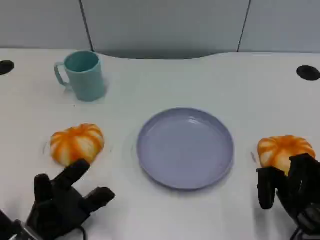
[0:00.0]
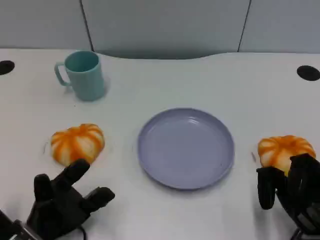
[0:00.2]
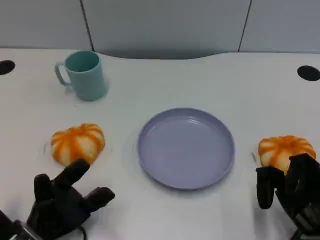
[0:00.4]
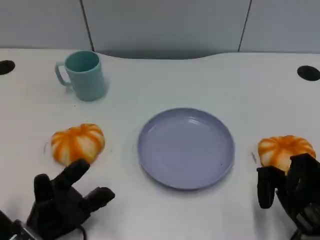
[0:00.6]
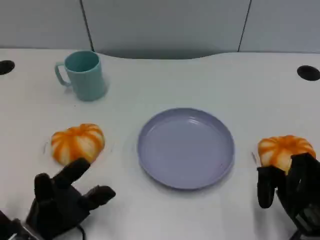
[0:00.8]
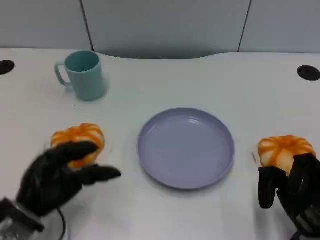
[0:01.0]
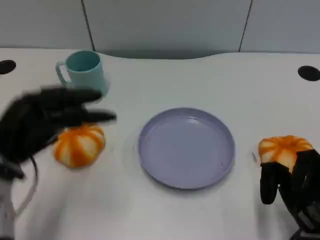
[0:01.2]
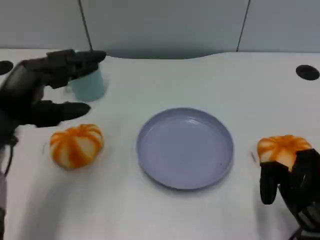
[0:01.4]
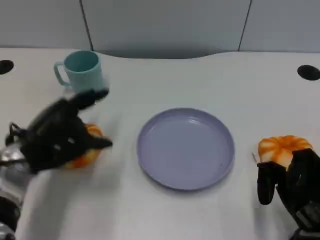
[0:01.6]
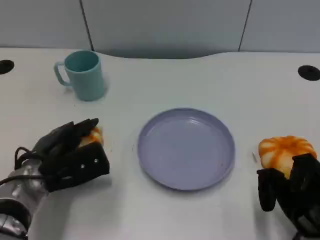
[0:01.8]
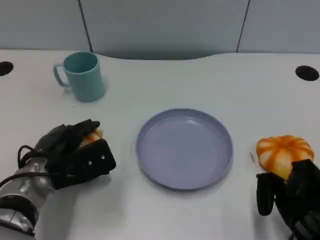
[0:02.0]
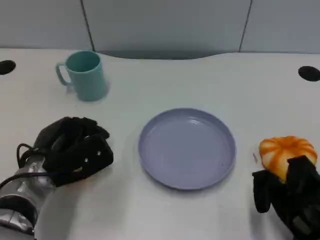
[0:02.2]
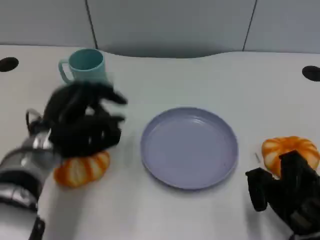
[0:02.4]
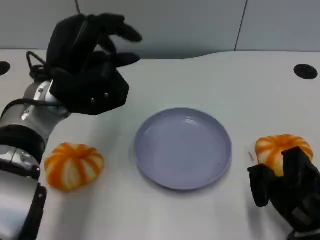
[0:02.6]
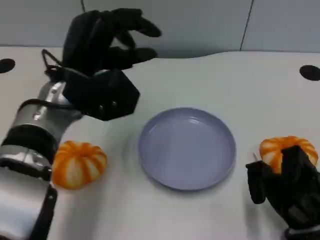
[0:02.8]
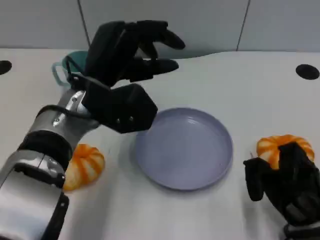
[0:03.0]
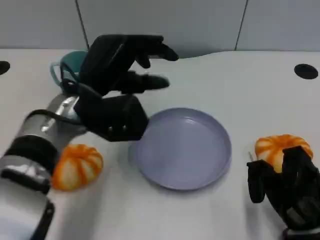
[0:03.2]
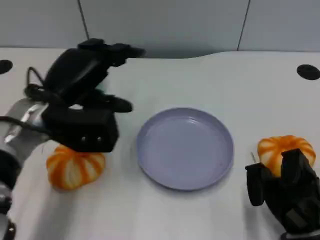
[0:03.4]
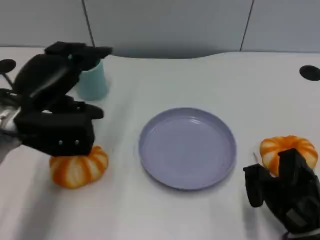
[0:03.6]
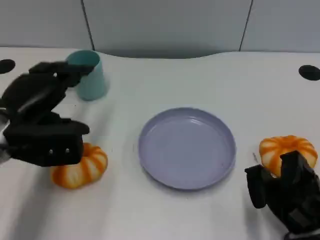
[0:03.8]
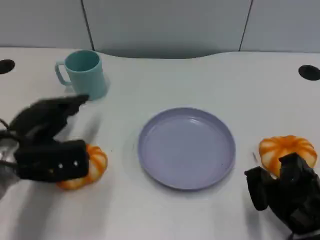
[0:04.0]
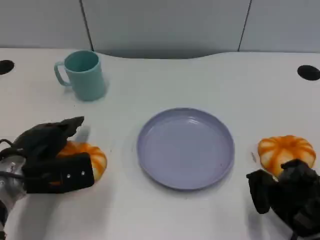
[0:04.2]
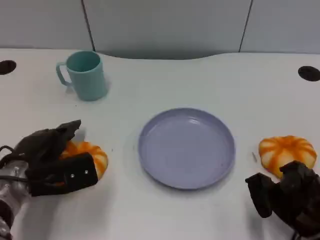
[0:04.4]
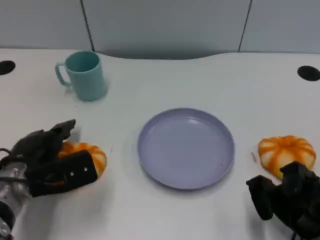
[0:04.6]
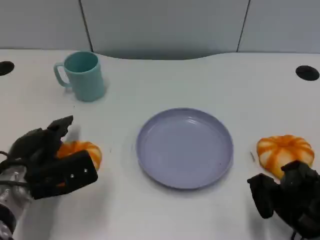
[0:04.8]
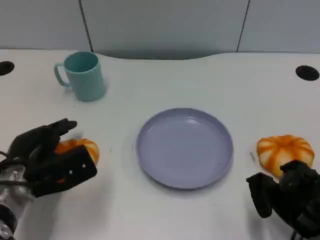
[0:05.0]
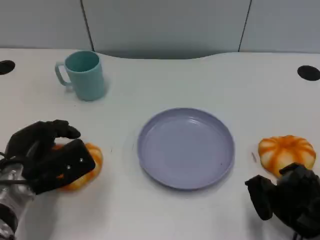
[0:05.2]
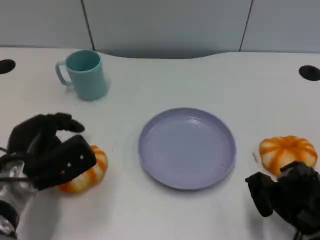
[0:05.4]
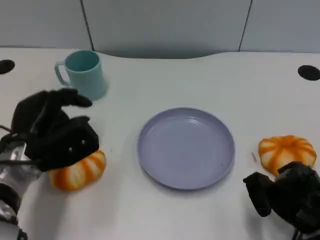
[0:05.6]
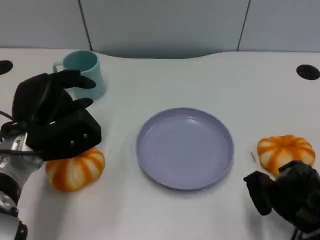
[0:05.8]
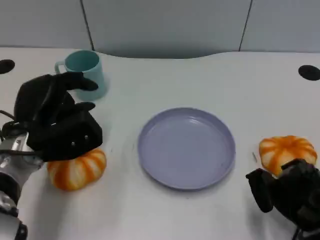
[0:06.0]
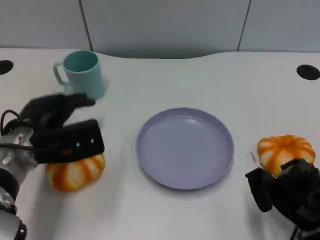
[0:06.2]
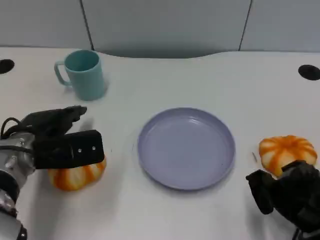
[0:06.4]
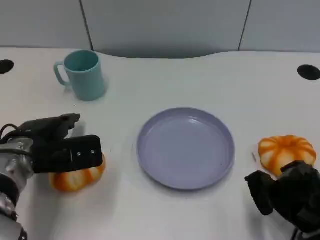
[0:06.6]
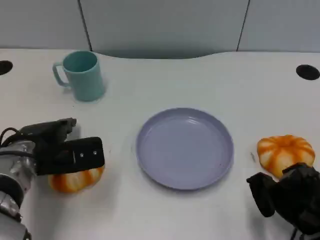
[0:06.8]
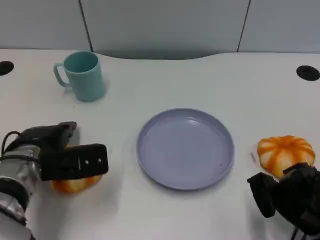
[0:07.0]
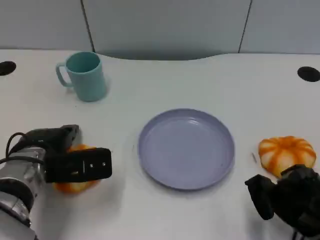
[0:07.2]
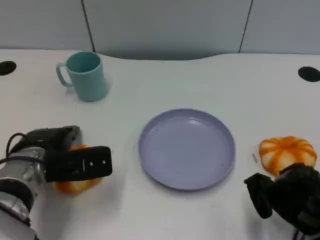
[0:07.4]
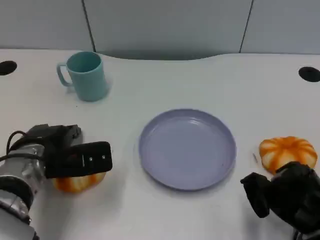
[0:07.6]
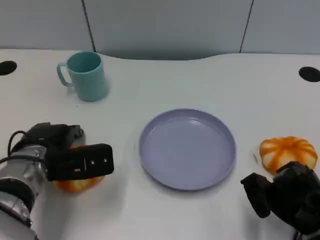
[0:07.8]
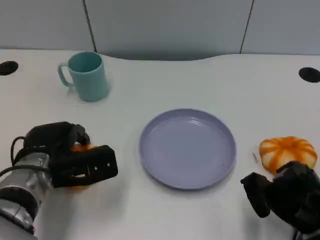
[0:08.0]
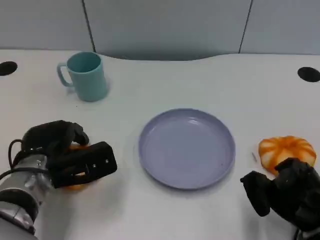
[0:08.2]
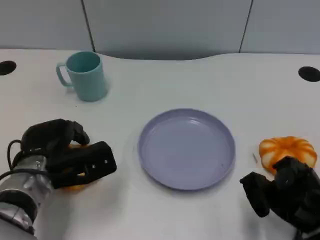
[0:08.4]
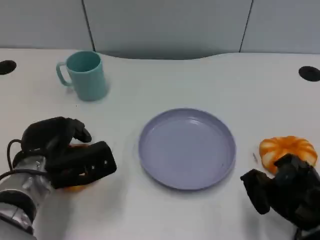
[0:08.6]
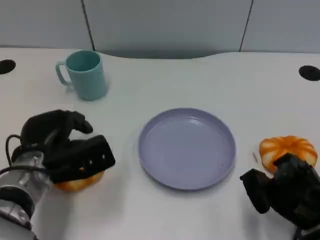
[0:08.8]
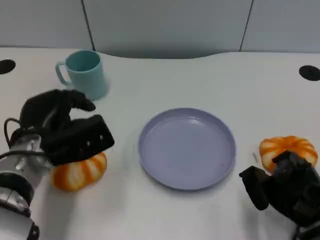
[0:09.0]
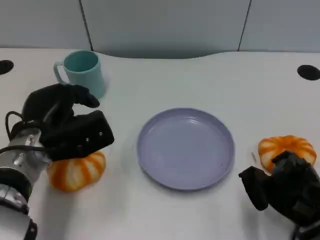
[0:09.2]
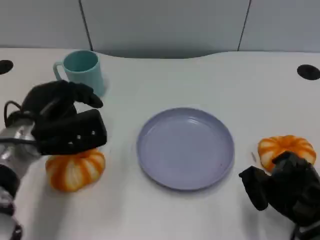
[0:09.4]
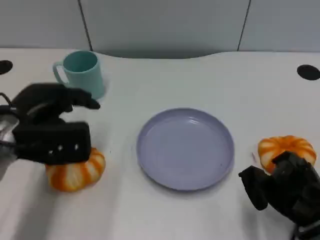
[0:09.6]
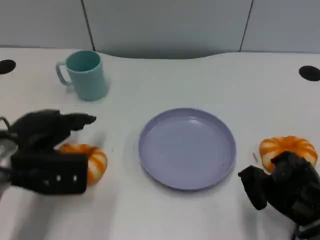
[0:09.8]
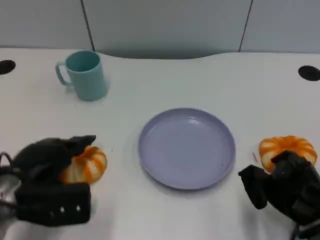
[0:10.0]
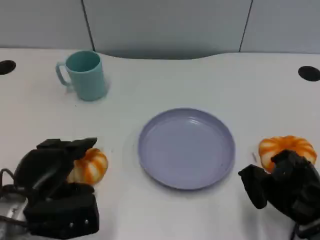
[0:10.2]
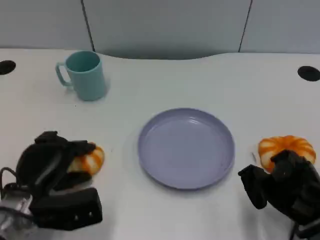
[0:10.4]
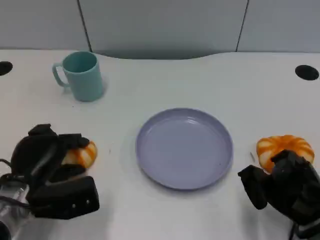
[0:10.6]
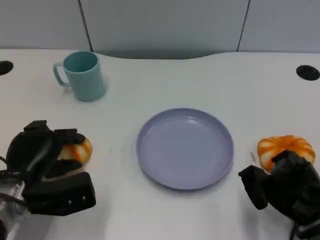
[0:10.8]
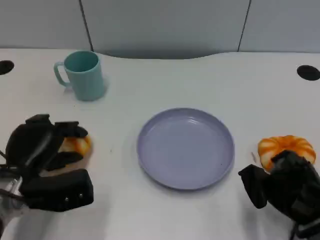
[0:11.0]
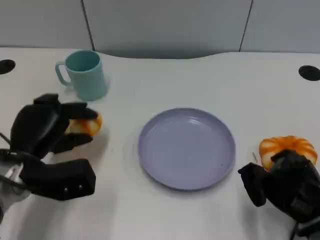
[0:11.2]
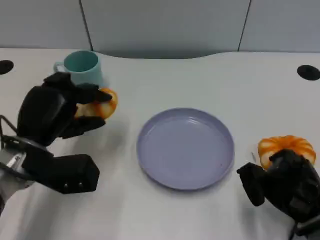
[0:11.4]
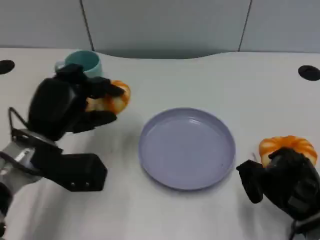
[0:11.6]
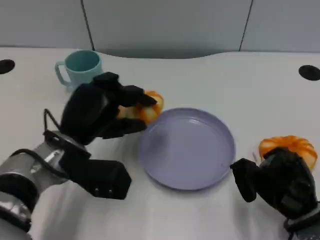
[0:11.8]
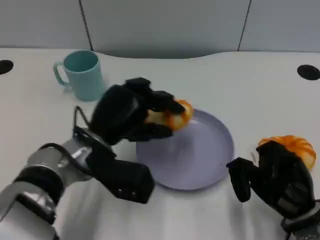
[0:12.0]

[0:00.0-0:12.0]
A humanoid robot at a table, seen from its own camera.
Task of the whole recording: Grasp the bread from the table and place it into the plate.
0:00.0 to 0:01.6: The left hand goes some 15 cm upward and forward.
0:01.6 to 0:03.0: The left hand travels to the right and upward by approximately 10 cm.
0:03.0 to 0:04.4: The left hand travels to the left and downward by roughly 15 cm.
0:04.4 to 0:06.0: The left hand shifts by approximately 5 cm.
0:09.0 to 0:10.4: The left hand heads backward and downward, covering about 10 cm.
0:10.4 to 0:12.0: The left hand moves to the right and upward, roughly 10 cm.

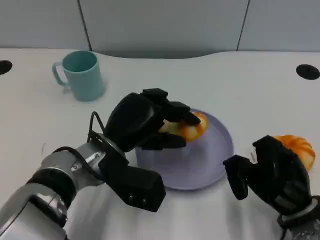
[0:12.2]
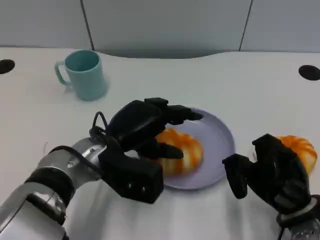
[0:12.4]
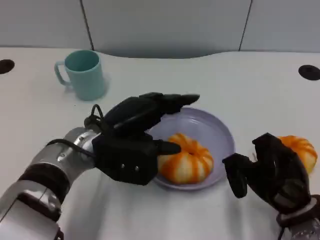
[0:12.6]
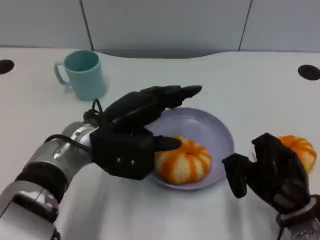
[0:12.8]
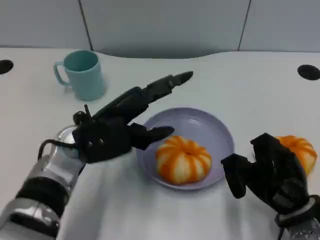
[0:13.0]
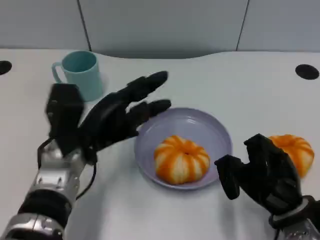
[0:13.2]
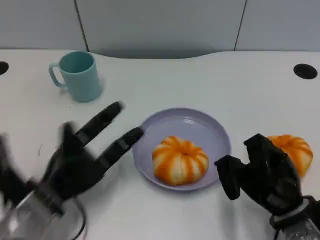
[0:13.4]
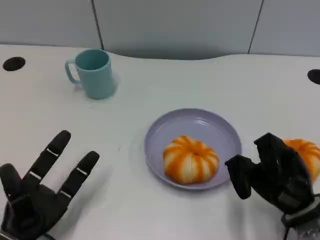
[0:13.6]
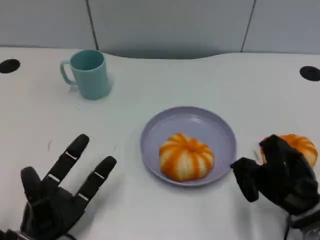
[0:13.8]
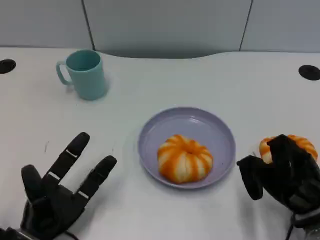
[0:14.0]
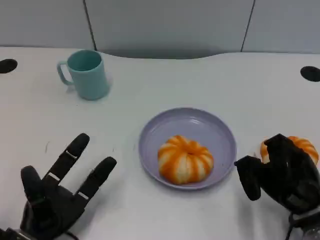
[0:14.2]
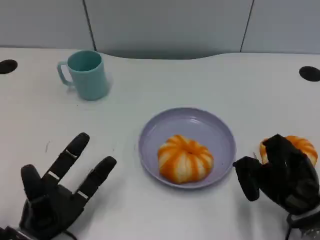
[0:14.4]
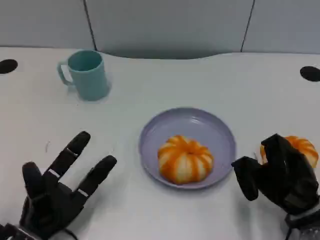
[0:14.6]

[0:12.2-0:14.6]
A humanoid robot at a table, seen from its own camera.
Task of the whole recording: Grasp the bread from the table and place it into the plate.
0:12.2 to 0:13.4: The left hand travels to the left, downward and backward by roughly 15 cm.

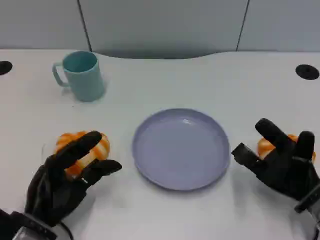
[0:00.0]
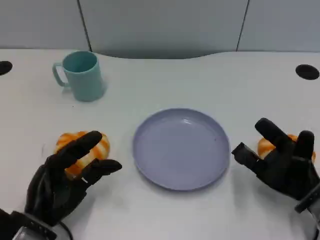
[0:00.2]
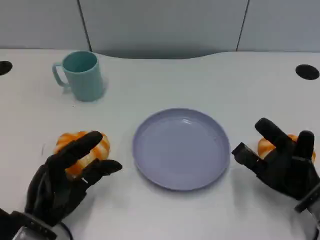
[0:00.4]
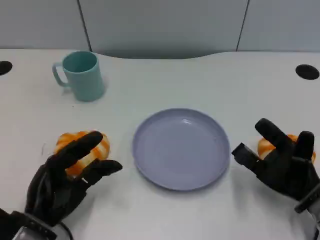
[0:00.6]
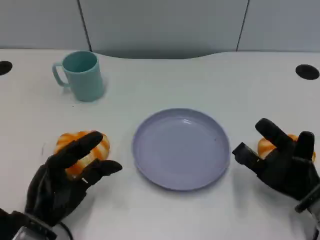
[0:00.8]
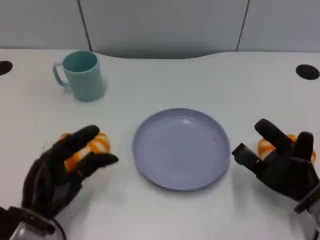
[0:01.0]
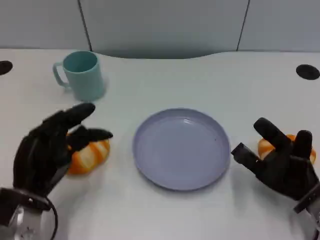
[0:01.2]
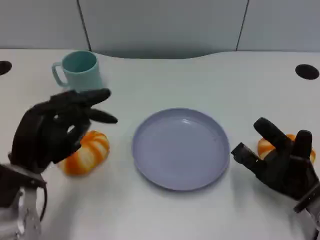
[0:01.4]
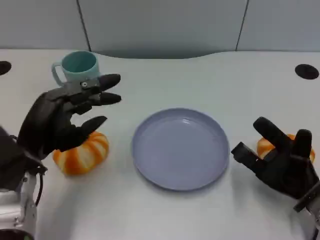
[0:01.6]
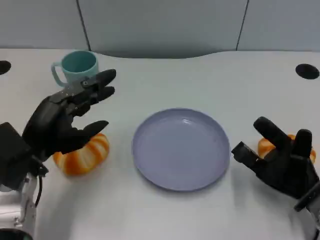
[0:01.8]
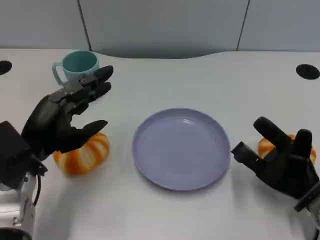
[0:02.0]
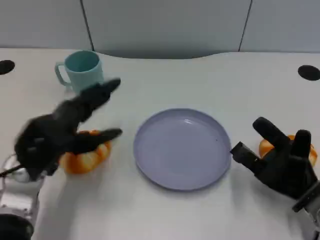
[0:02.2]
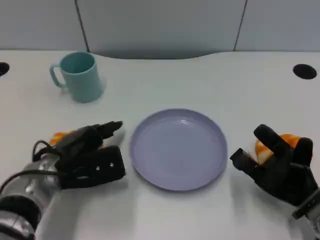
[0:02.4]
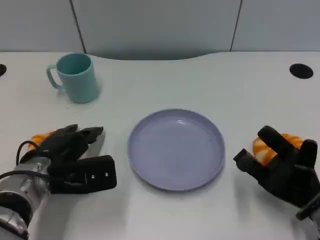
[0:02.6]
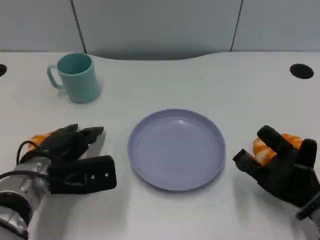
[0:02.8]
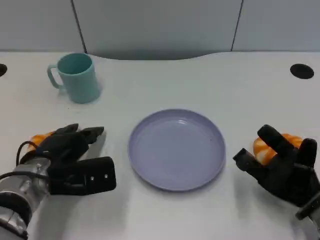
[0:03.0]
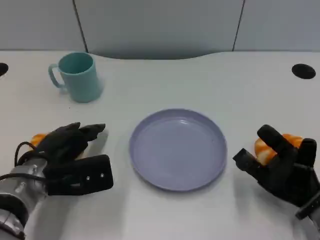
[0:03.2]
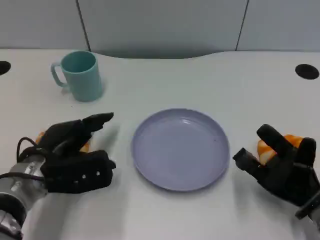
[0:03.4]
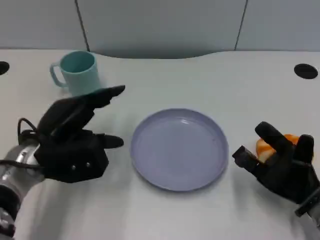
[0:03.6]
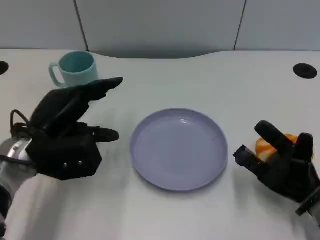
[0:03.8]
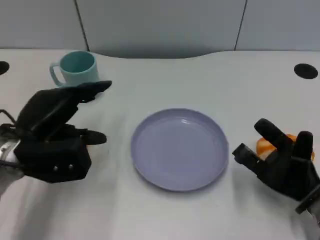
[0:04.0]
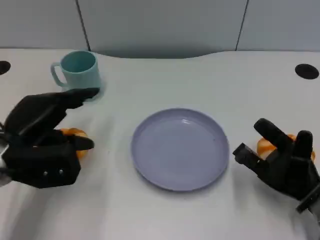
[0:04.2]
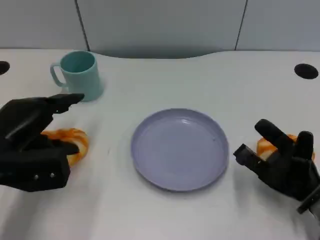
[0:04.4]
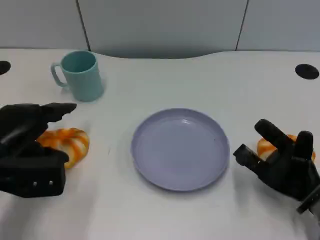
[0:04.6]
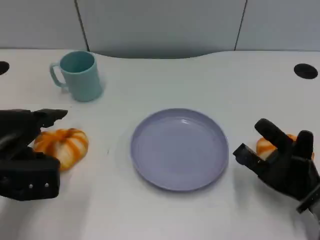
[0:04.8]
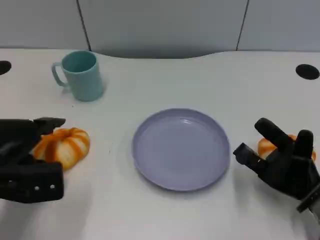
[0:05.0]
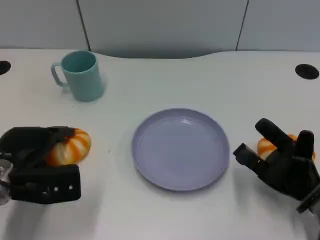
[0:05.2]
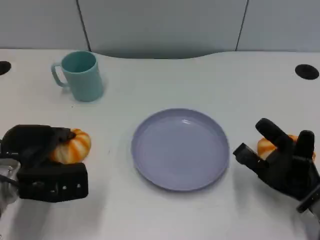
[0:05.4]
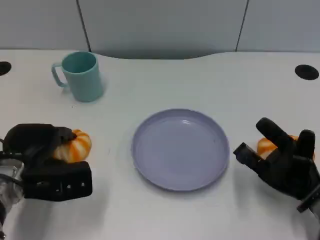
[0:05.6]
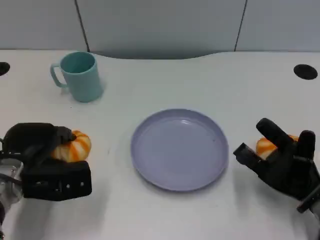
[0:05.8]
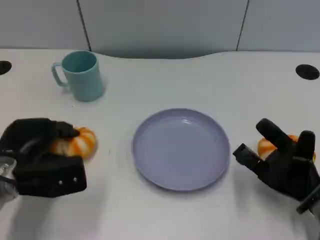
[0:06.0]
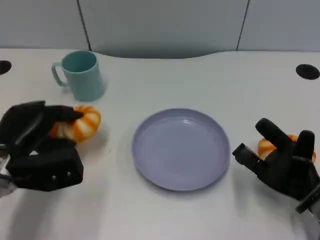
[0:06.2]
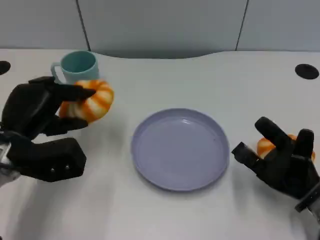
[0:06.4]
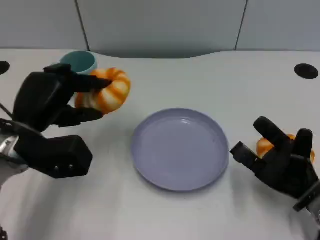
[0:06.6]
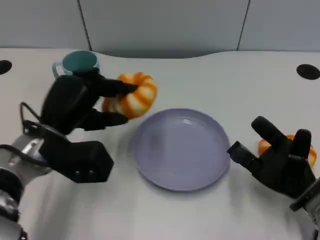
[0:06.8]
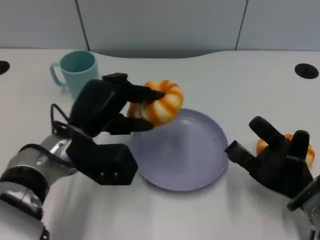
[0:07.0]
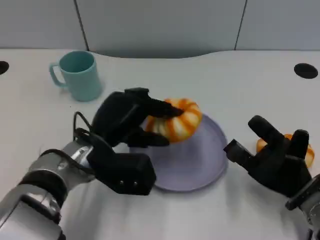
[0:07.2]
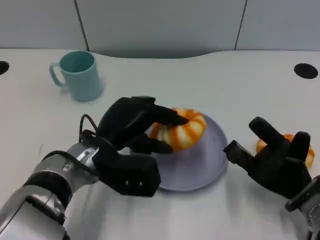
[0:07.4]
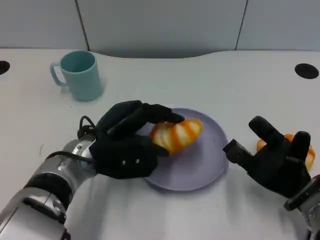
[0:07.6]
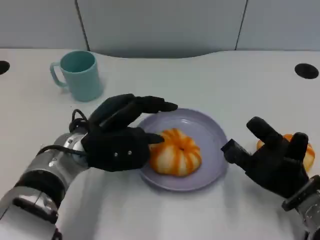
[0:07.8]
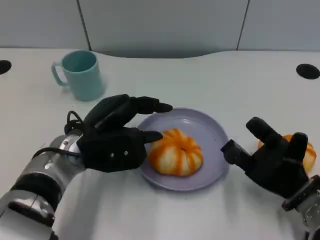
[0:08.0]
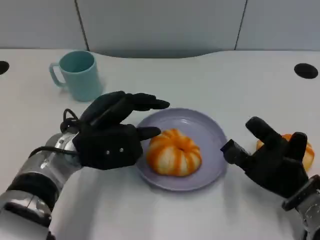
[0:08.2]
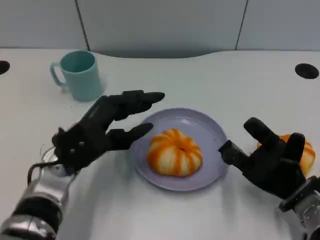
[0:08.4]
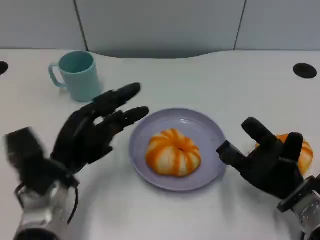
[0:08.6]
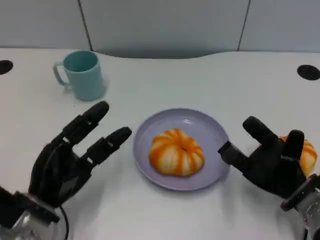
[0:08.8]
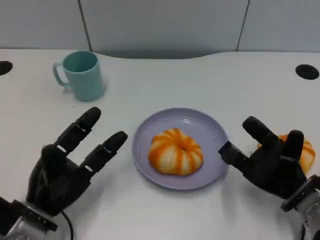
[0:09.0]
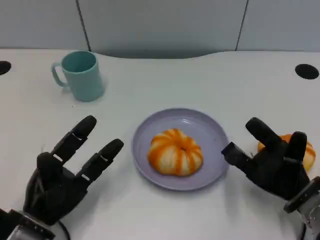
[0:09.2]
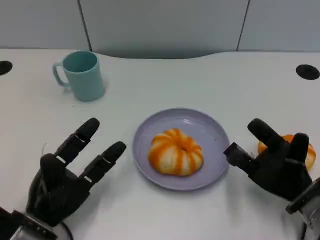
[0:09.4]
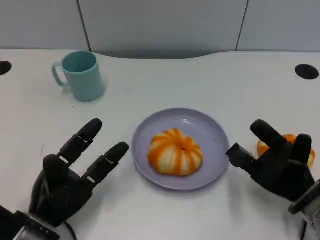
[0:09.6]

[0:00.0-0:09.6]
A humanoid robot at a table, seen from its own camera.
Task of the whole recording: Grasp the bread from the table and place it into the plate.
0:00.0 to 0:01.6: The left hand is displaced upward and forward by about 10 cm.
0:01.6 to 0:03.2: The left hand changes place by some 5 cm.
0:03.2 to 0:04.8: The left hand shifts some 5 cm to the left.
0:04.8 to 0:06.4: The left hand moves about 5 cm.
0:06.4 to 0:08.0: The left hand goes approximately 10 cm to the right.
0:08.0 to 0:09.6: The left hand moves backward, downward and to the left, roughly 15 cm.
